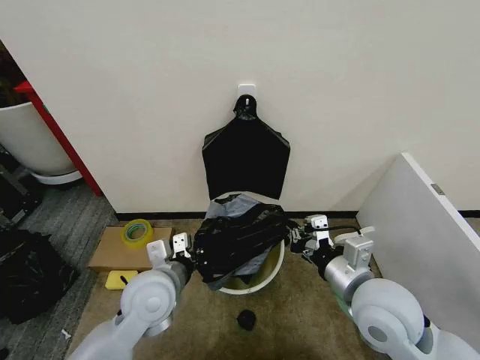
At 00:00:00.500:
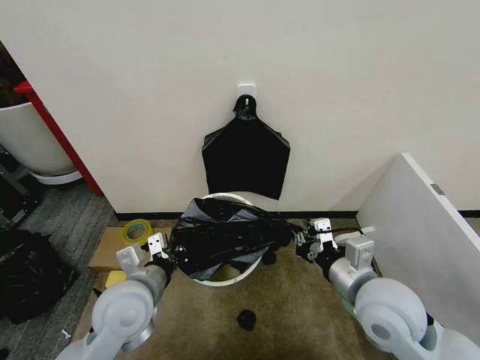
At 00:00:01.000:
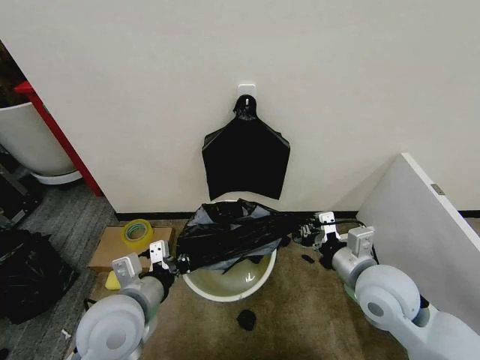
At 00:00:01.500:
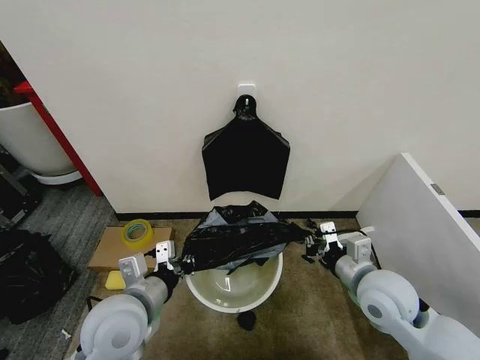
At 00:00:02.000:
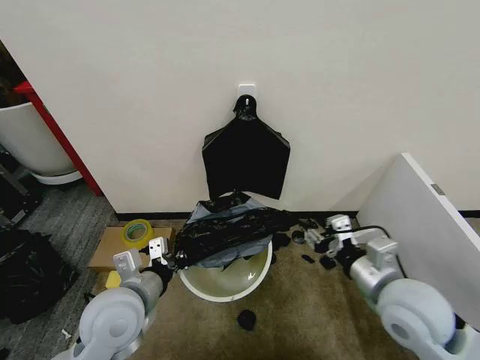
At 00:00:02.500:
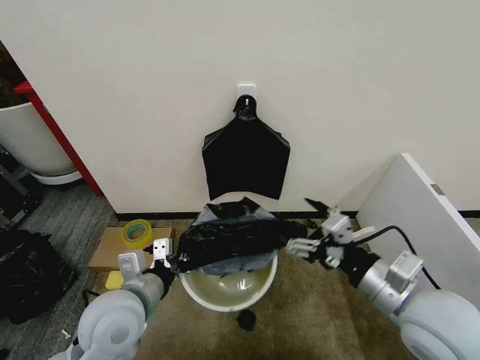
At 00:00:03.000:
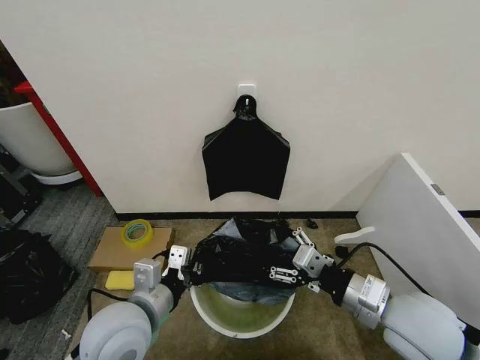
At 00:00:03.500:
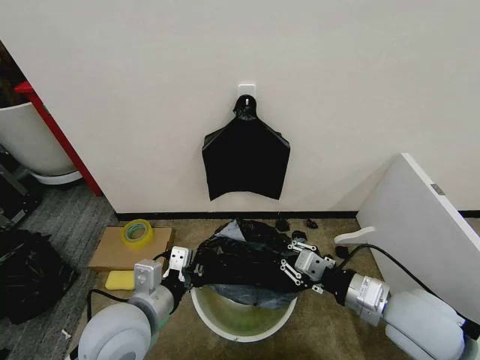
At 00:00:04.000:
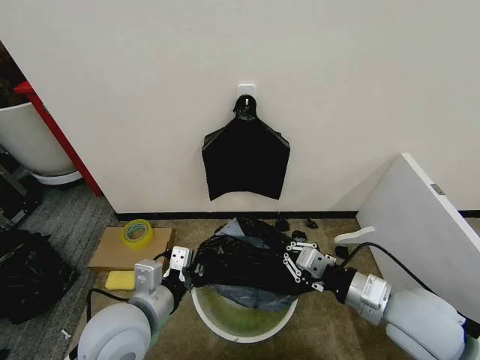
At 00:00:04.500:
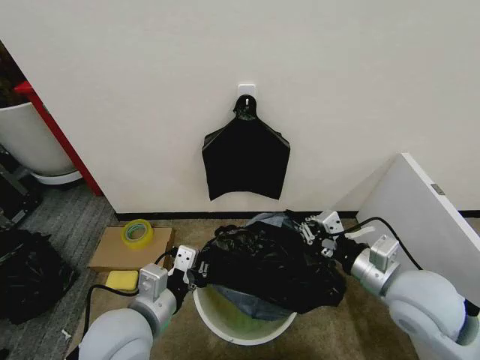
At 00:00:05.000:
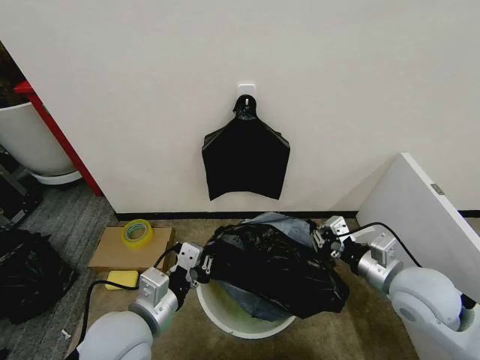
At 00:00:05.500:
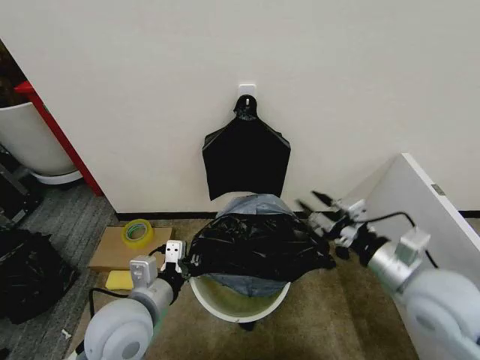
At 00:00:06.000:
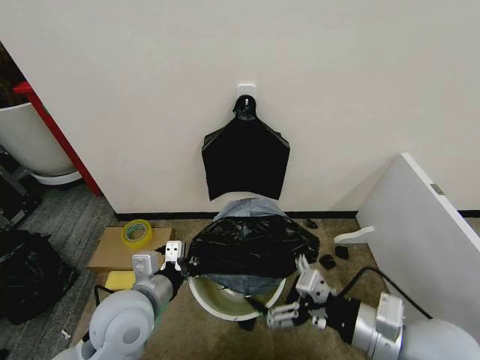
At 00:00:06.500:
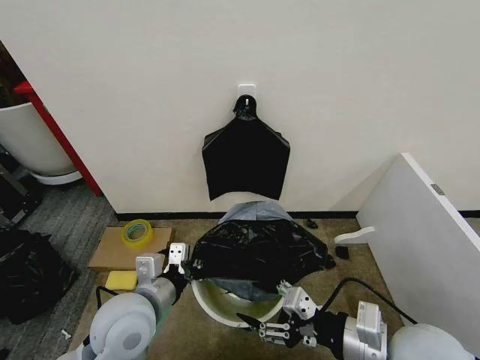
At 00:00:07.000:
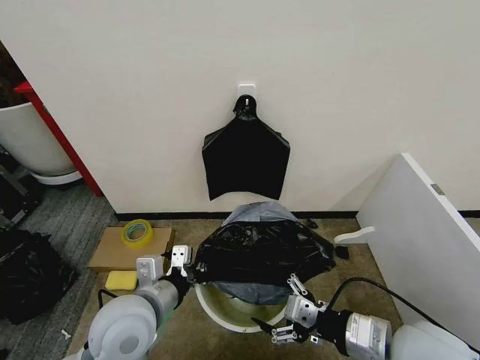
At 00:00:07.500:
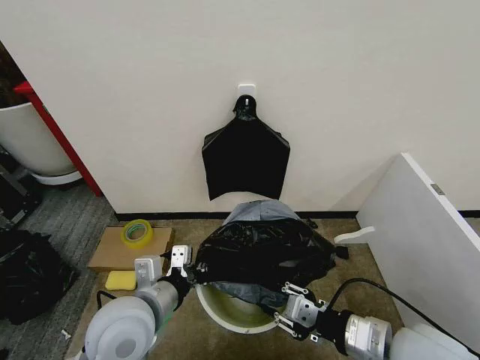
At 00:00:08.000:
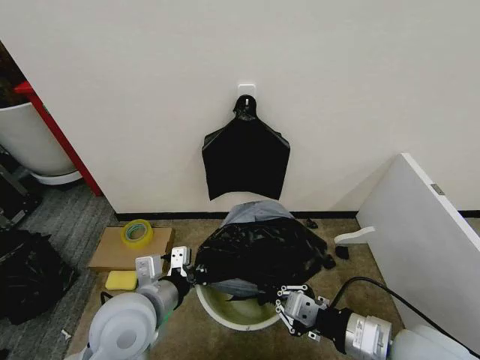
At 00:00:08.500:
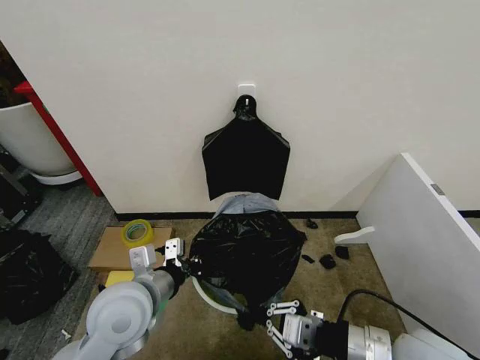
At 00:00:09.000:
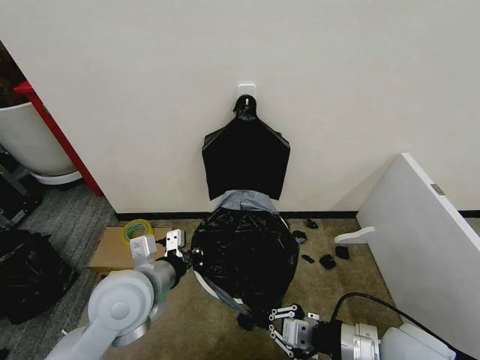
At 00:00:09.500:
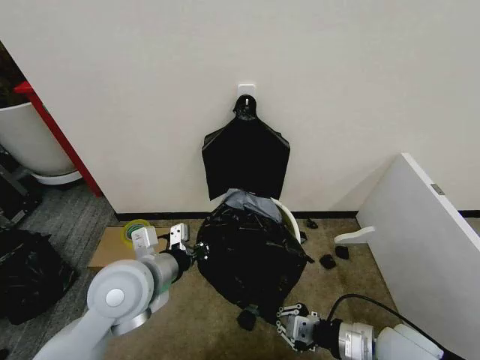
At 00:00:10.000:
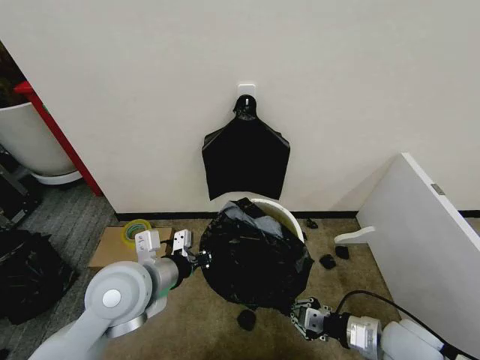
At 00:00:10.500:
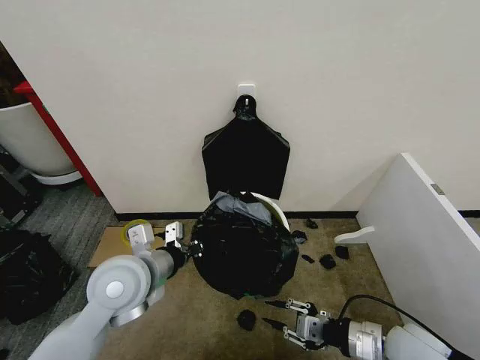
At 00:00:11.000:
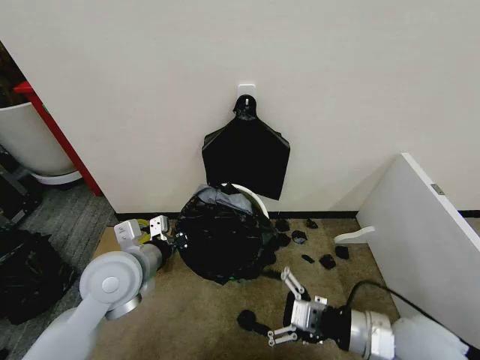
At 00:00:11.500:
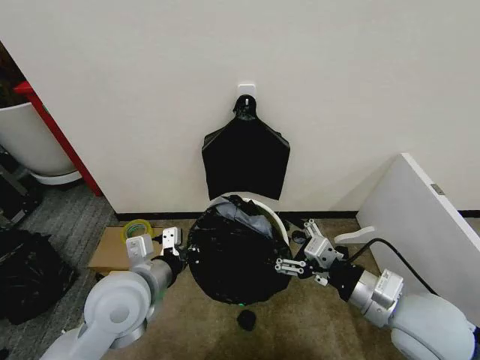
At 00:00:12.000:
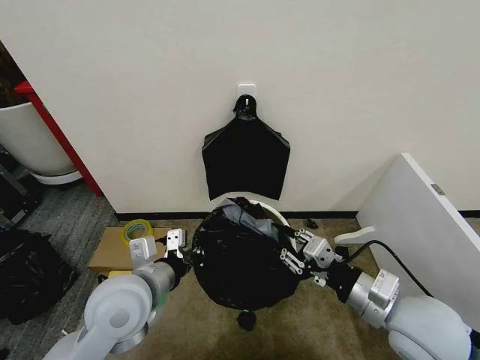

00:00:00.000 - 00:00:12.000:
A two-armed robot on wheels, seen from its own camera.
Task of the whole recording: Place the garbage bag over the trash bin.
00:00:00.000 - 00:00:02.000: The right gripper opens up; the left gripper moves some 5 cm.
00:00:02.000 - 00:00:04.000: The right gripper closes its fingers.
00:00:04.000 - 00:00:06.000: The right gripper is displaced backward by approximately 5 cm, and opens its fingers.
00:00:06.000 - 00:00:08.000: The right gripper closes.
00:00:08.000 - 00:00:10.000: The left gripper changes place by about 5 cm, while the right gripper is displaced downward and to the right by some 15 cm.
00:00:10.000 - 00:00:12.000: The right gripper heads upward, covering some 10 cm, and opens.

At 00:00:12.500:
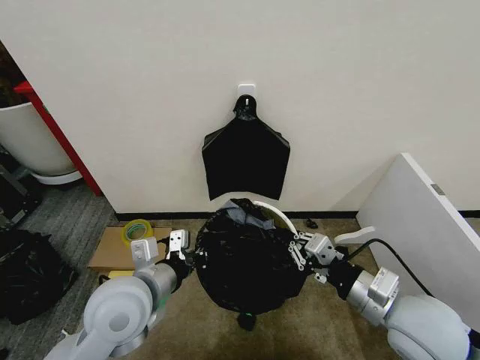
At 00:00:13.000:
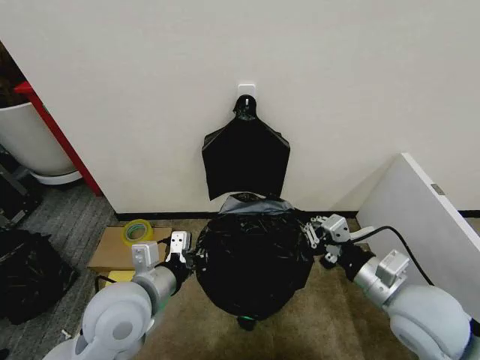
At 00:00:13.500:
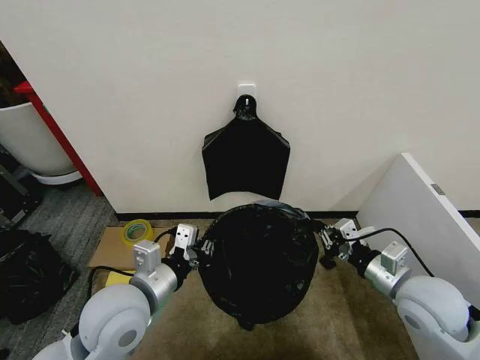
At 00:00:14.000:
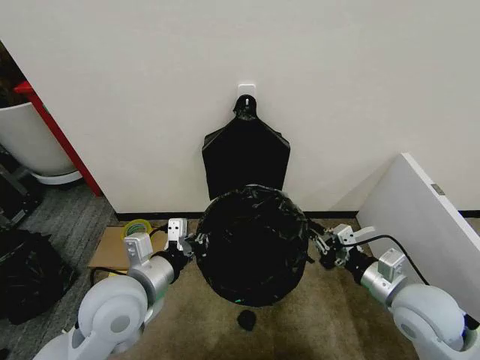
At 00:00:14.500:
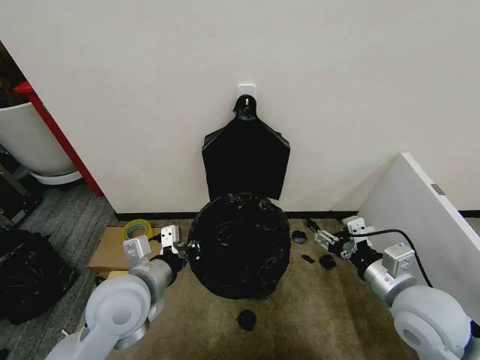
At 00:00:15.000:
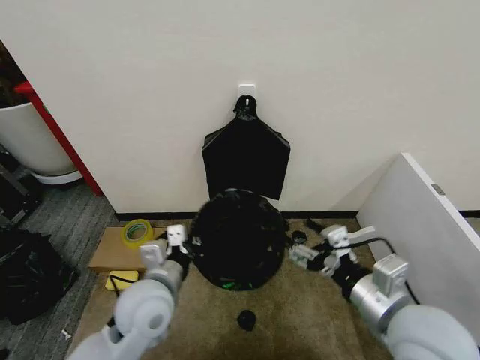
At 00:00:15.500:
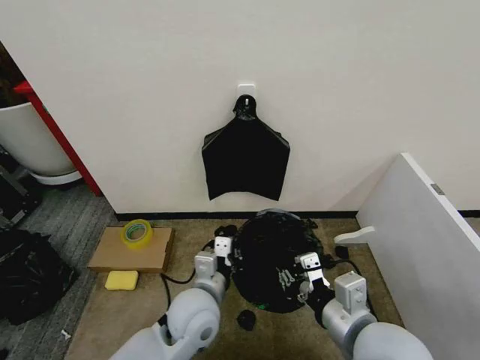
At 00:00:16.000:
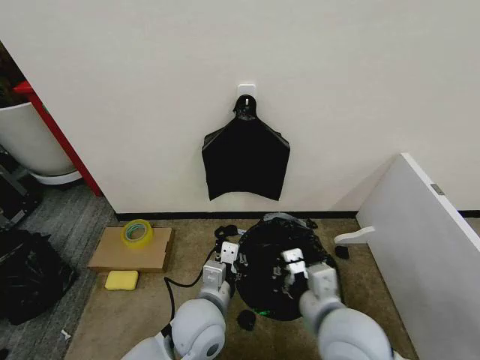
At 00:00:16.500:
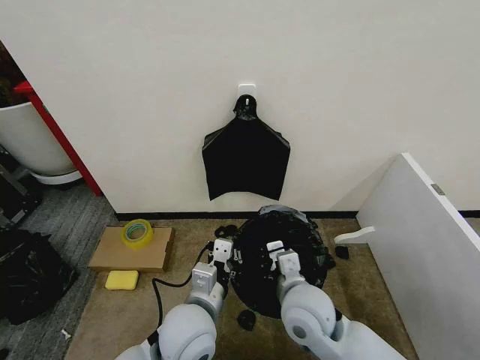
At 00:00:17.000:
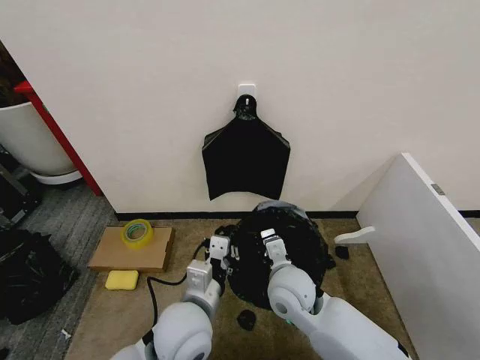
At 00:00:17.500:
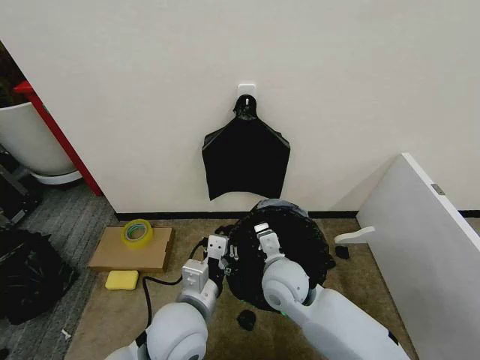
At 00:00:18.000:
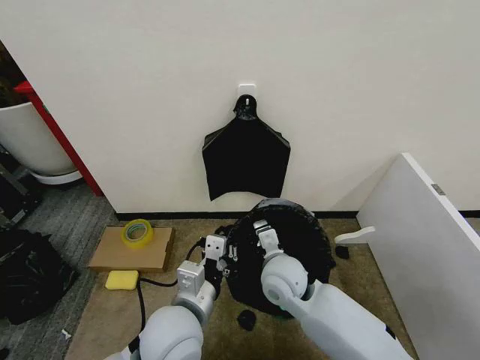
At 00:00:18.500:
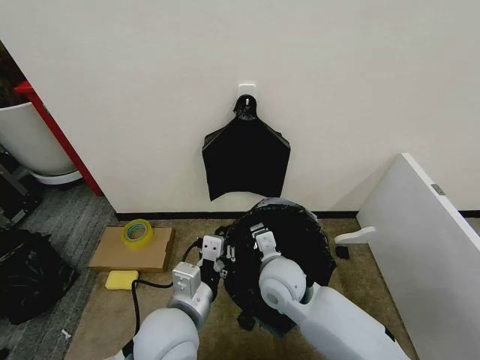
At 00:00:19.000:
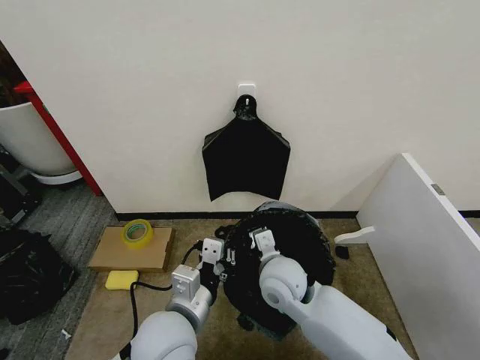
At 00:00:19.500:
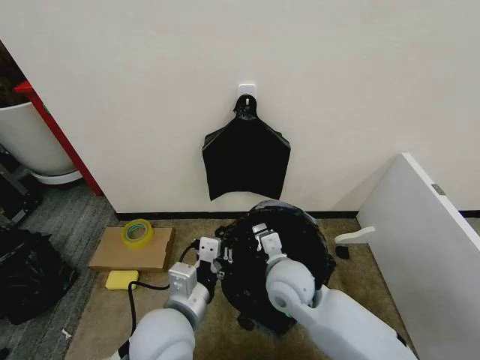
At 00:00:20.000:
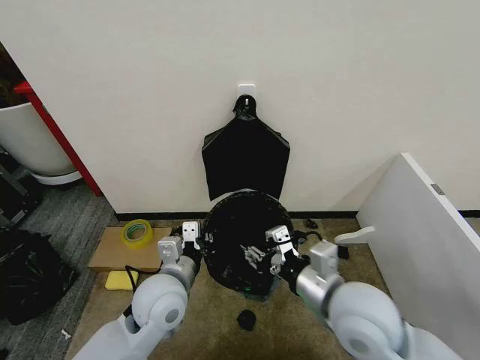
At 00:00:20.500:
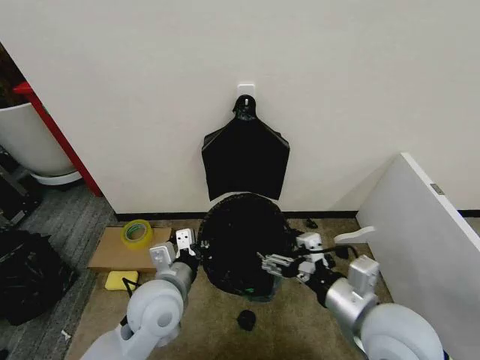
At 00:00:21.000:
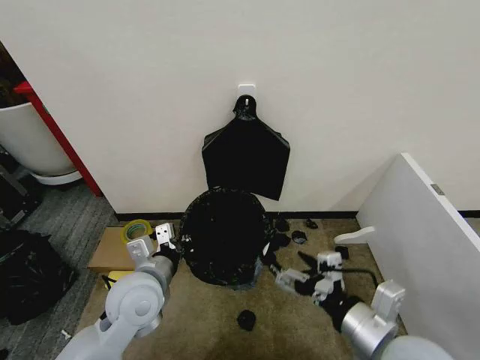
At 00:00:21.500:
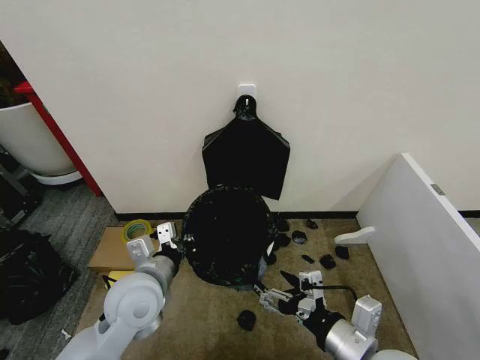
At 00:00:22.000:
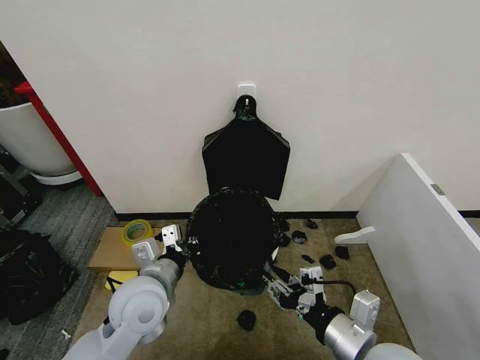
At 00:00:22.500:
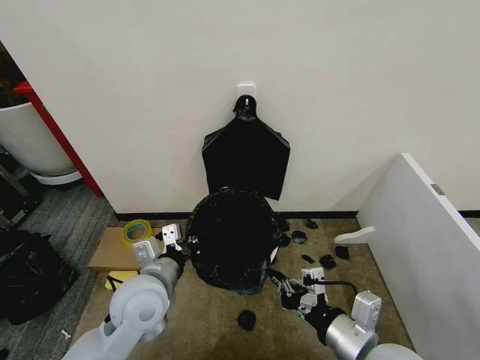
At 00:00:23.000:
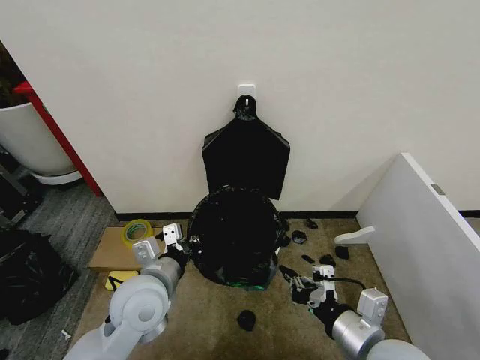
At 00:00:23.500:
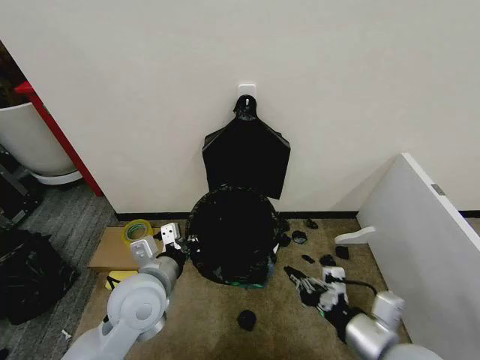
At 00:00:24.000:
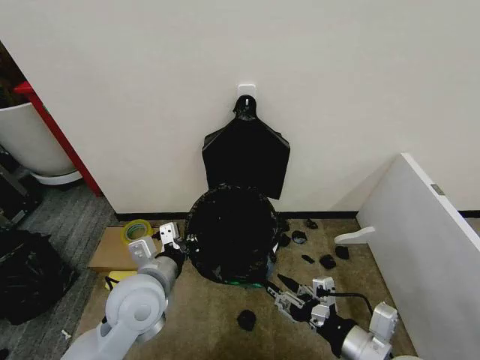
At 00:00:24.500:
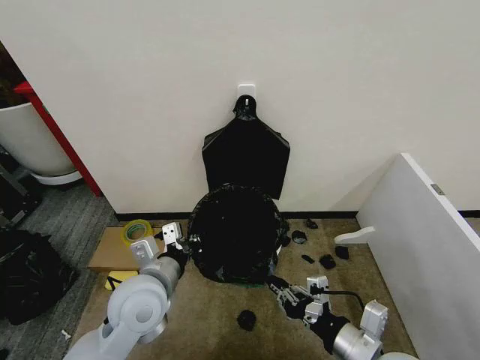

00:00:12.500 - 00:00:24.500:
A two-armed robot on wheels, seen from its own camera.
Task of the whole recording: Place the garbage bag over the trash bin.
00:00:12.500 - 00:00:14.500: The right gripper opens its fingers.
00:00:14.500 - 00:00:16.500: The right gripper shifts some 20 cm to the left, and closes its fingers, while the left gripper is displaced to the right and downward by roughly 10 cm.
00:00:16.500 - 00:00:18.500: The right gripper heads forward, covering about 5 cm.
00:00:18.500 - 00:00:20.500: The right gripper goes roughly 20 cm to the right, backward and upward, and opens its fingers, while the left gripper moves forward, roughly 5 cm.
00:00:20.500 - 00:00:22.500: The right gripper changes place by about 5 cm, and closes up.
00:00:22.500 - 00:00:24.500: The right gripper opens, then closes once more.

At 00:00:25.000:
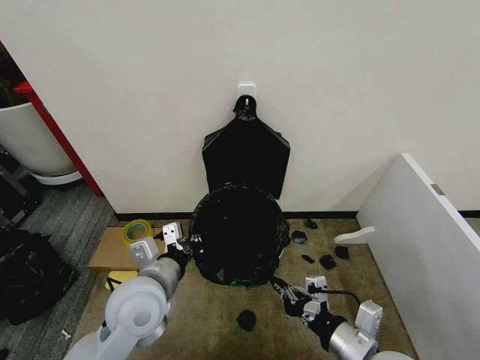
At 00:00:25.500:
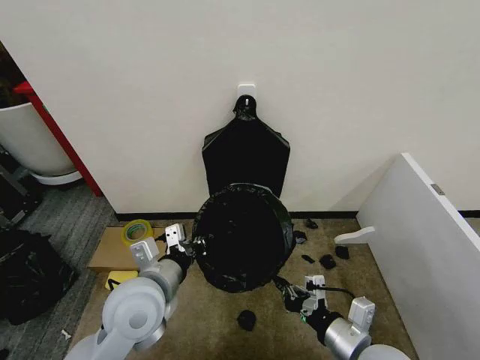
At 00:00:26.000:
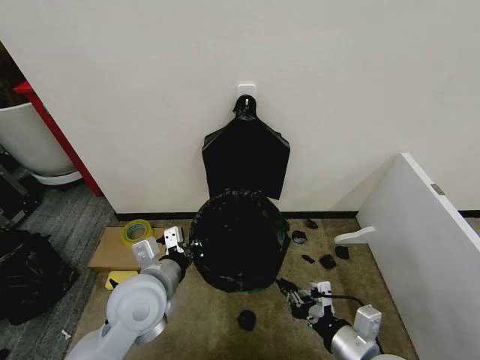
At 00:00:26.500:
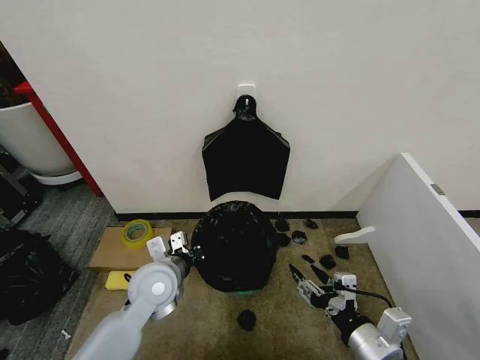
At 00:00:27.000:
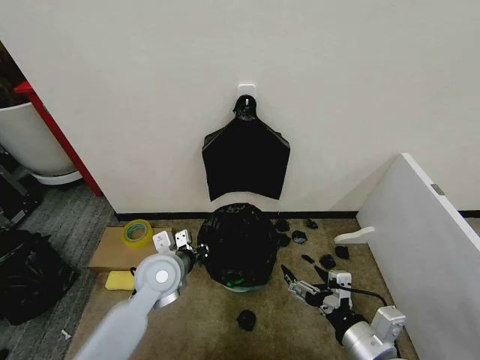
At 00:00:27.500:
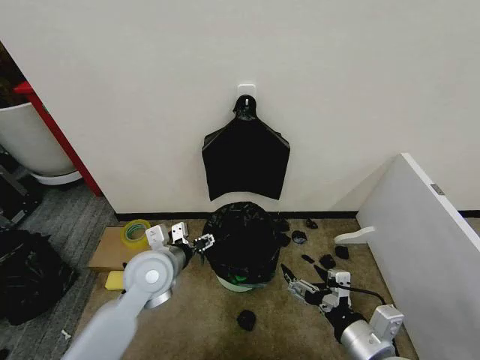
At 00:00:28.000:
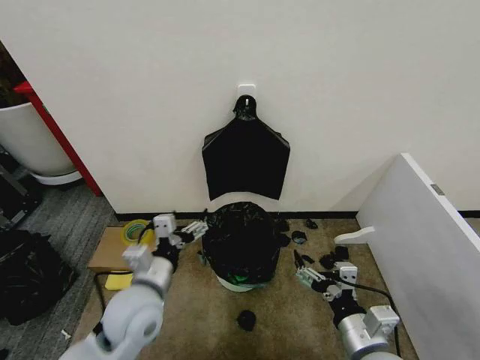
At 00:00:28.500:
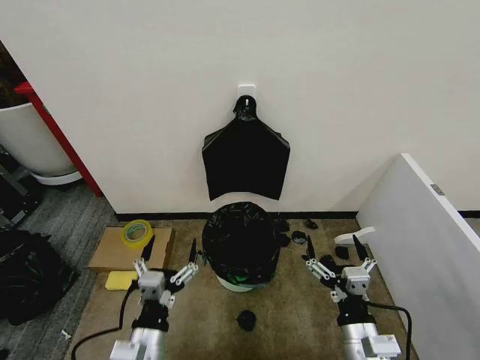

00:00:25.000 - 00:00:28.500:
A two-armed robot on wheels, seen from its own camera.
Task of the whole recording: Place the garbage bag over the trash bin.
00:00:25.000 - 00:00:27.000: The right gripper opens up; the left gripper shifts approximately 10 cm forward and downward.
00:00:27.000 - 00:00:28.500: The left gripper goes about 20 cm backward, and opens up, while the right gripper moves downward, approximately 5 cm.
